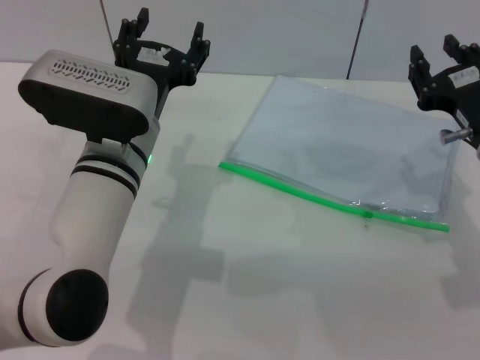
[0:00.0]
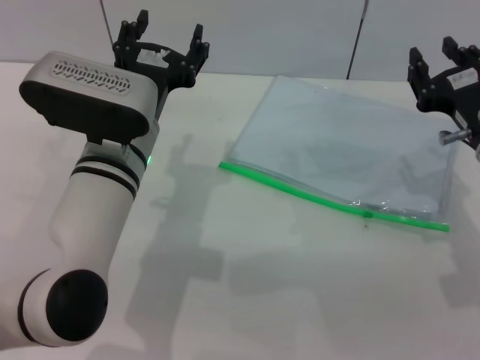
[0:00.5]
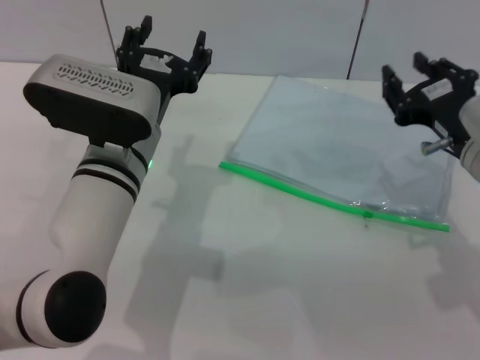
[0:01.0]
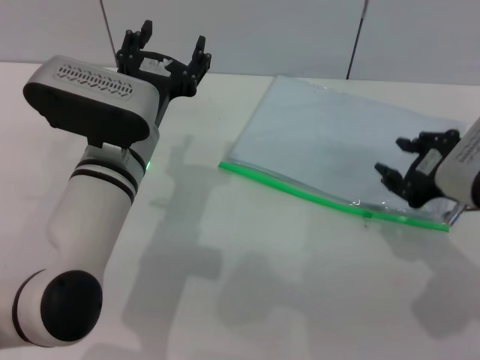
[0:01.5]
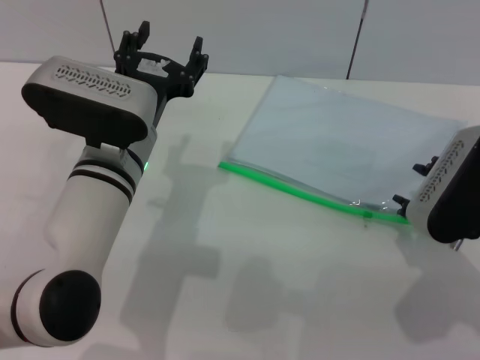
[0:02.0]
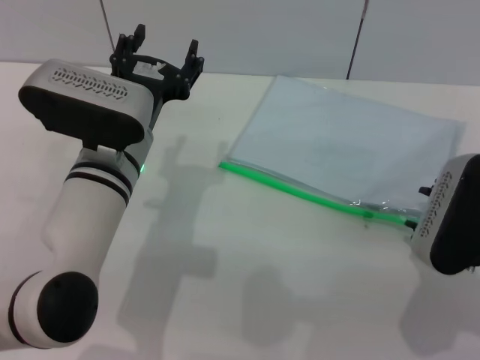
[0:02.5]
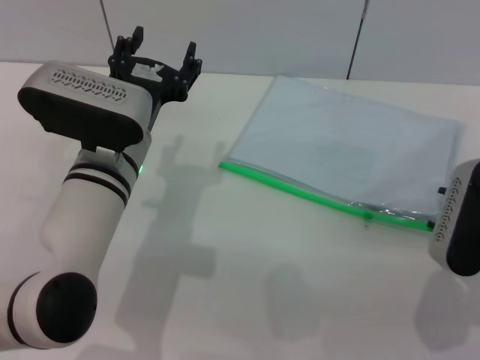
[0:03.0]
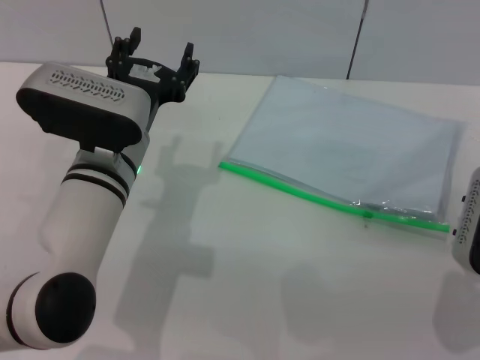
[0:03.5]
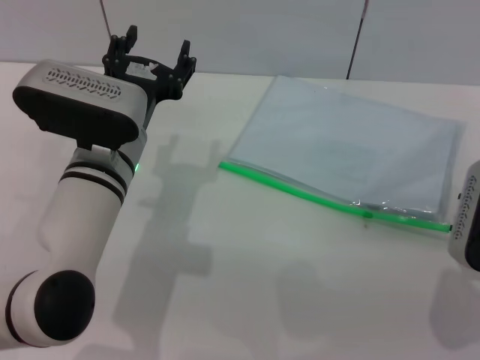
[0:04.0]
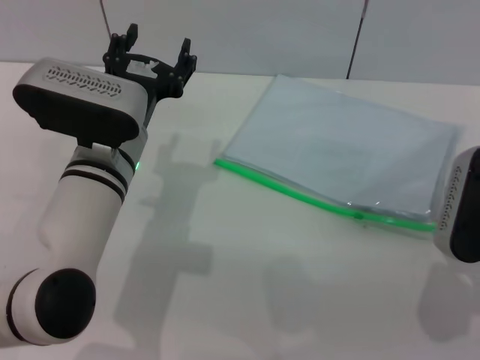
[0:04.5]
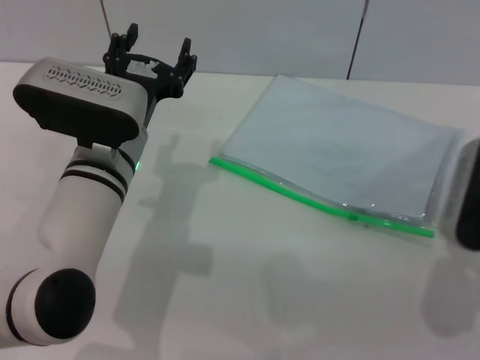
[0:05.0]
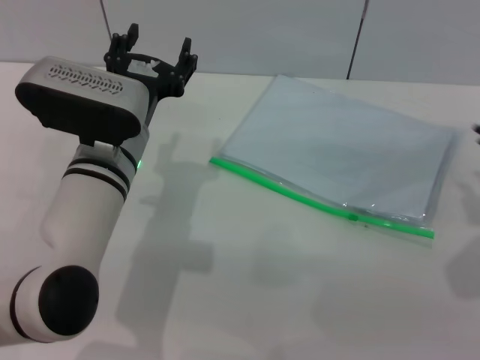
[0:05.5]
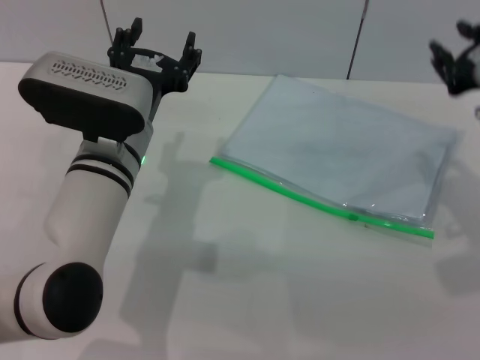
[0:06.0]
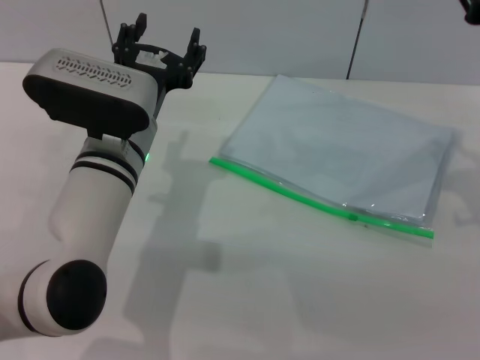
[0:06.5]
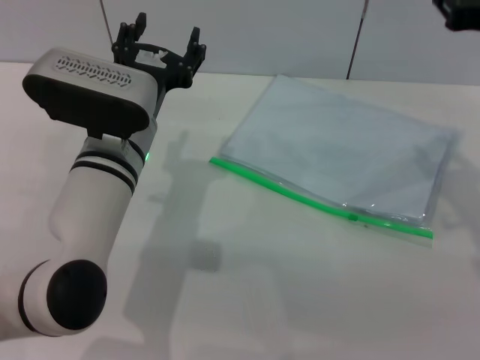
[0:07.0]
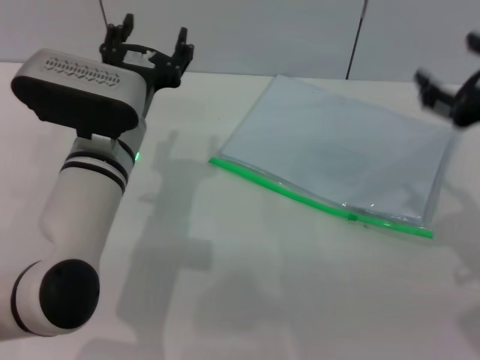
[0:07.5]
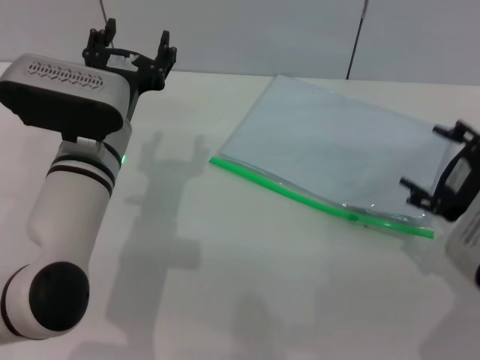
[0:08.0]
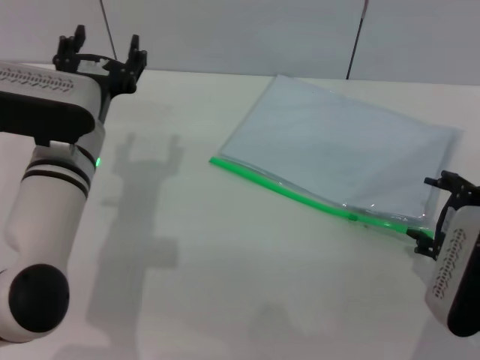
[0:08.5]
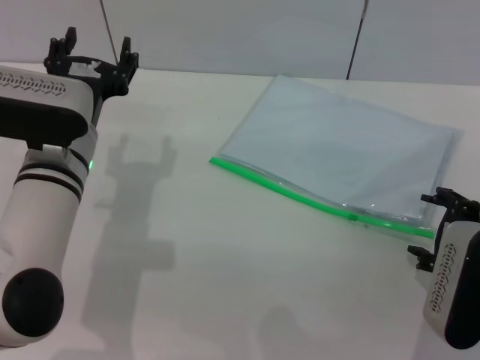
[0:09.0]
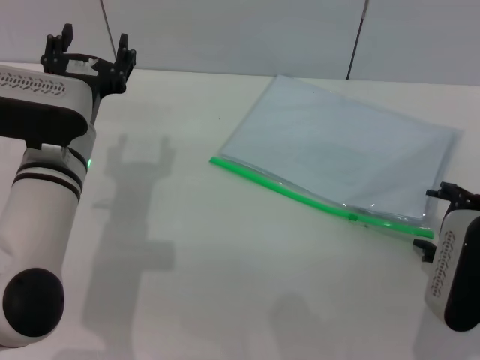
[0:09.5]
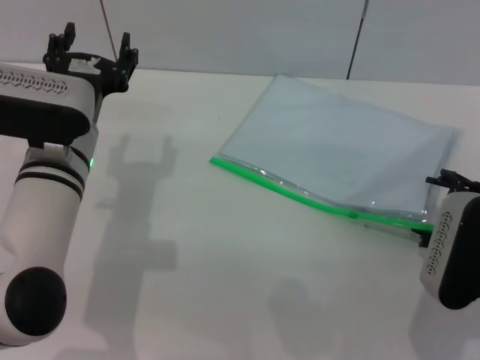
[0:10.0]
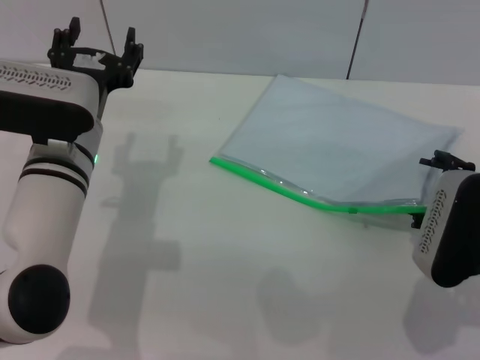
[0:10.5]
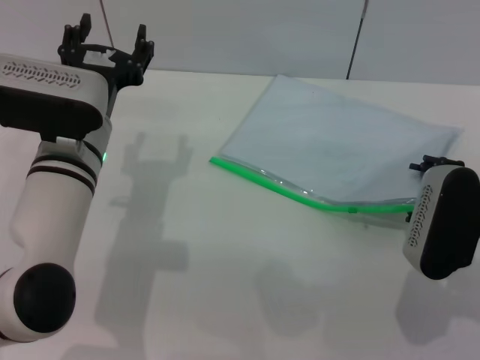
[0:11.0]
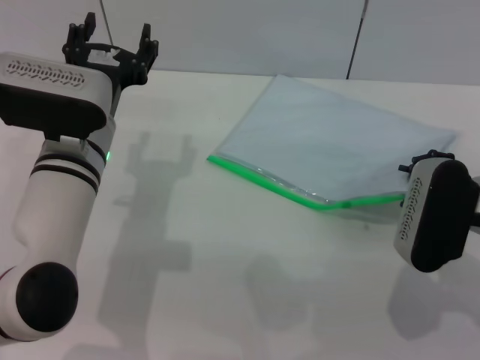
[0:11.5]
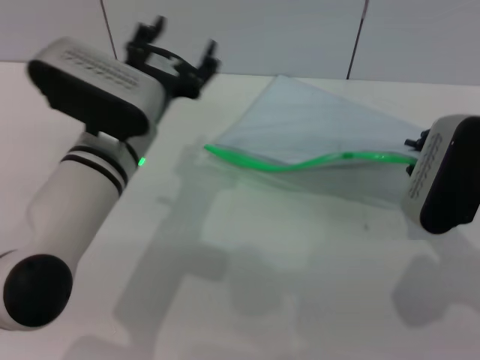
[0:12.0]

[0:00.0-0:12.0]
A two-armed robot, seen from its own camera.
0:04.0 to 0:06.0: The right gripper goes approximately 5 cm upward.
0:06.0 to 0:08.0: The right gripper is displaced backward by about 5 cm, and opens its fingers.
0:08.0 to 0:10.0: The right gripper heads downward, covering some 5 cm.
0:10.0 to 0:12.0: The right gripper moves some 5 cm, and closes.

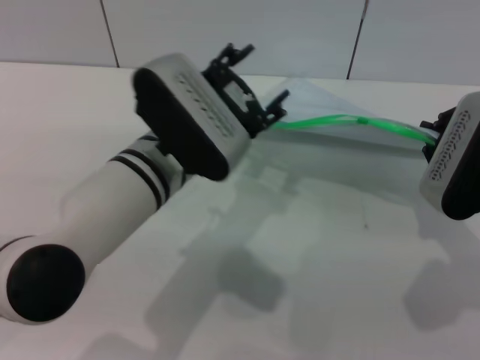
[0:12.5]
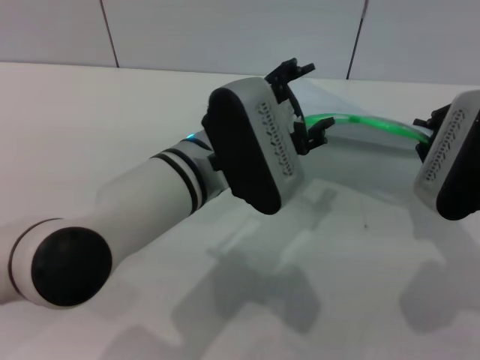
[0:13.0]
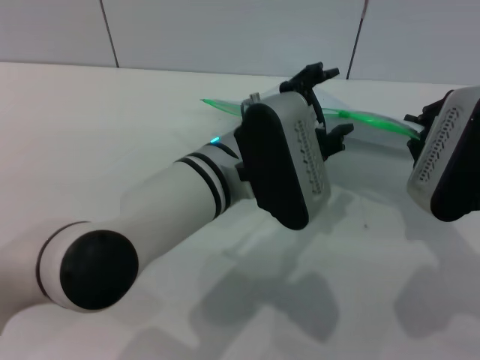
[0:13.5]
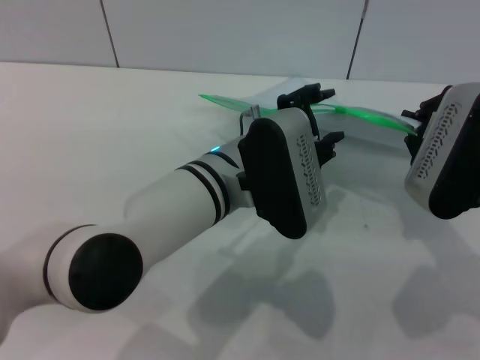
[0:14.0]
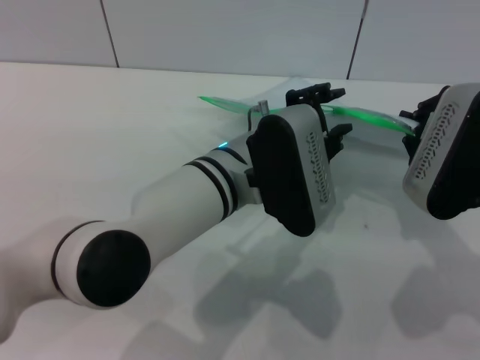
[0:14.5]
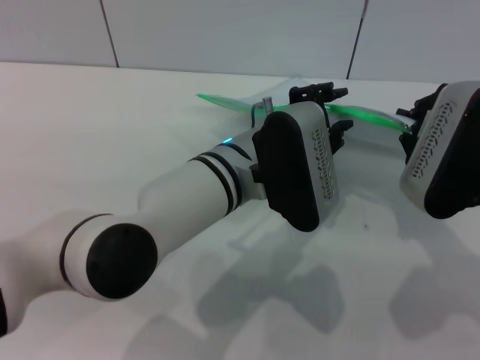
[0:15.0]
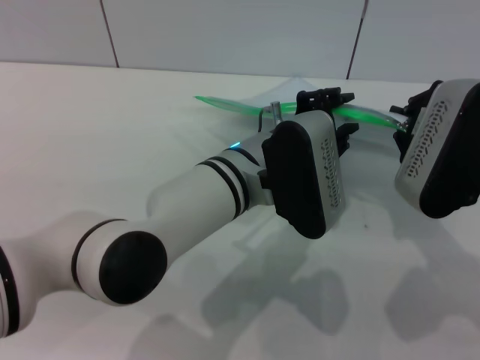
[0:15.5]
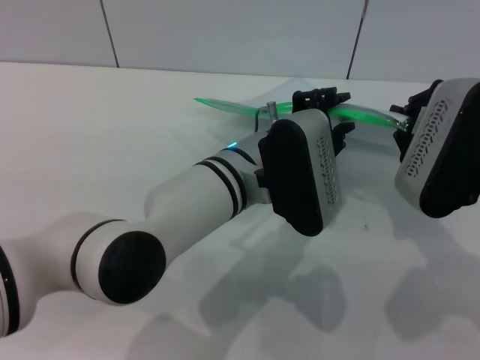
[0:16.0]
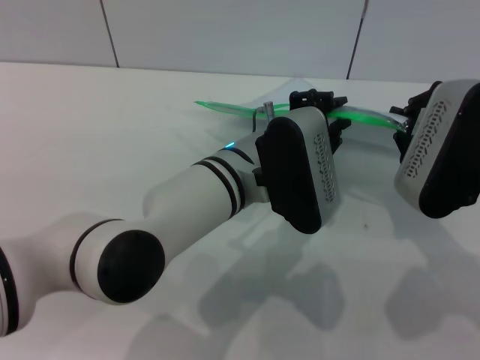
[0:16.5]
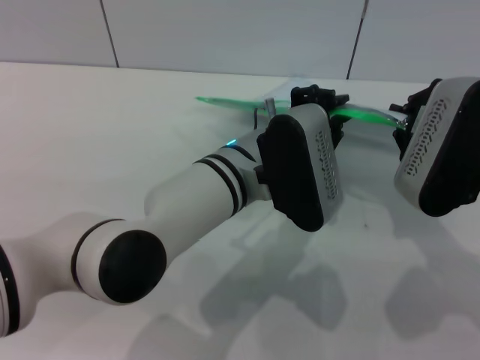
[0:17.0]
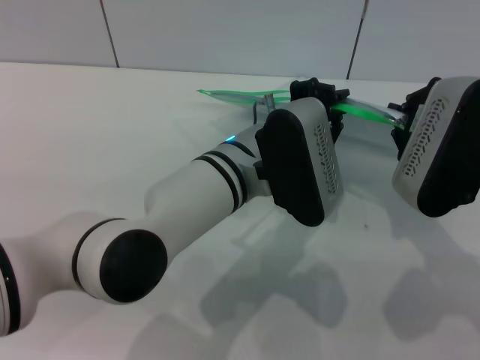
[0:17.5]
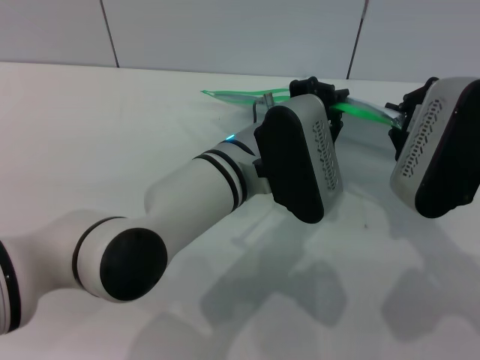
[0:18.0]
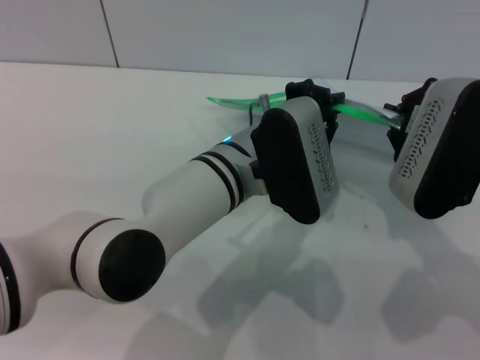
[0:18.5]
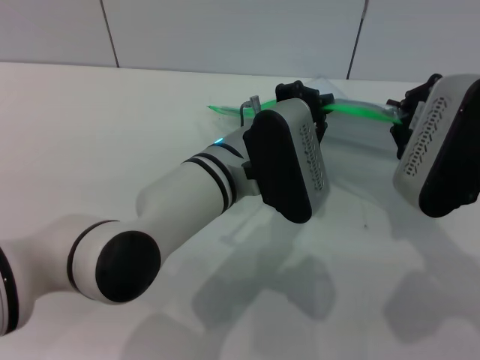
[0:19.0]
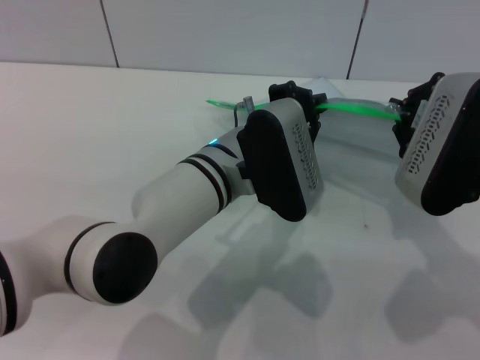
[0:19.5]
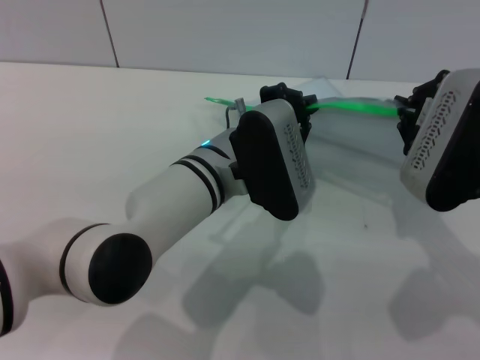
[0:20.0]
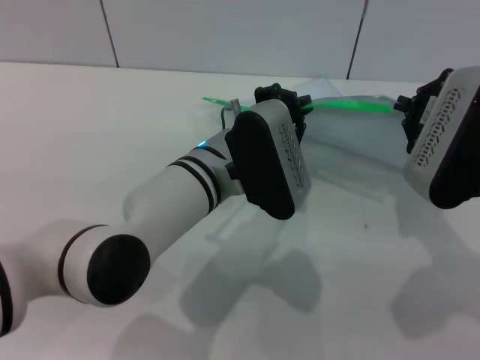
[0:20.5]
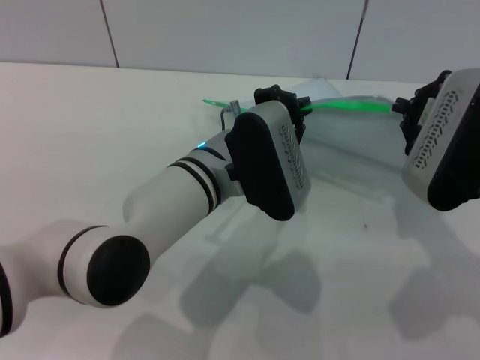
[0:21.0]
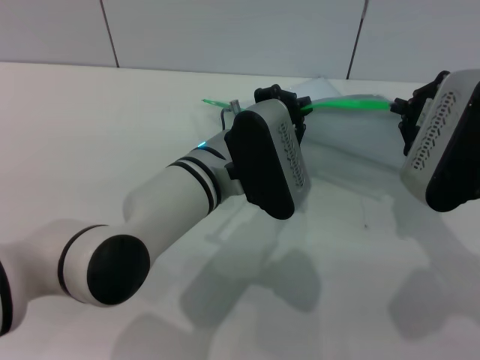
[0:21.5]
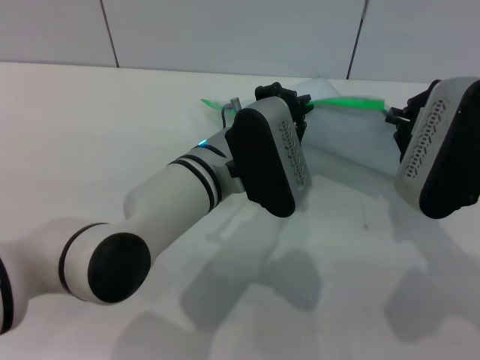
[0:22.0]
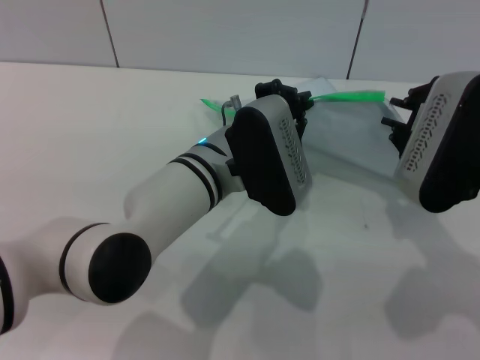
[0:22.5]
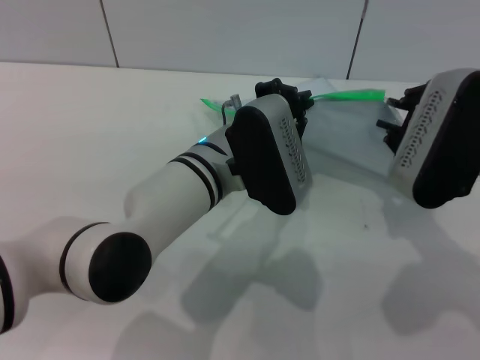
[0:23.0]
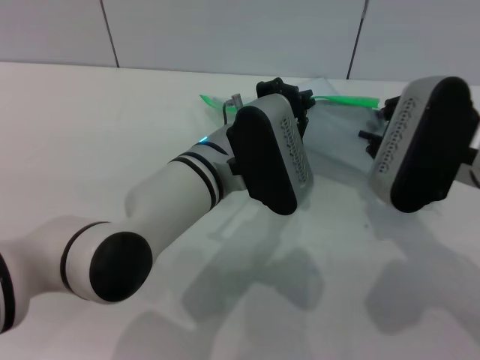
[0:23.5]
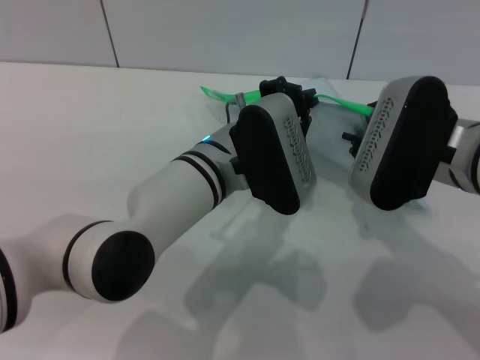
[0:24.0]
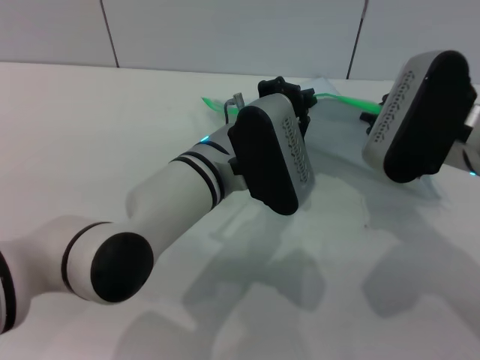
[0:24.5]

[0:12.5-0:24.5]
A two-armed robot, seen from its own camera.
0:12.5 to 0:14.5: The left gripper heads to the right, covering approximately 5 cm.
0:14.5 to 0:18.5: Both grippers stay put.
0:18.5 to 0:20.5: There are only small adjustments of the grippers.
0:20.5 to 0:22.5: Both grippers stay about where they are.
0:22.5 to 0:24.5: The grippers move only a little.

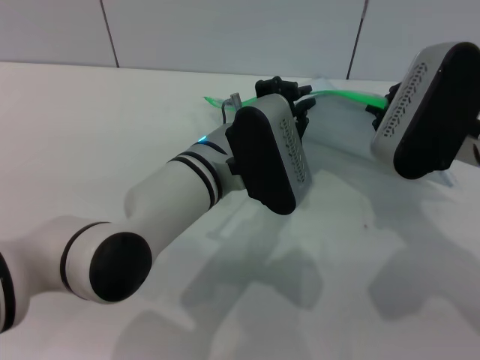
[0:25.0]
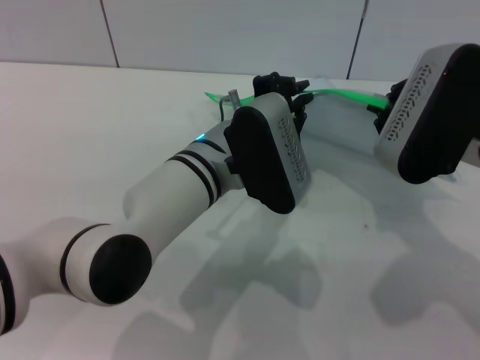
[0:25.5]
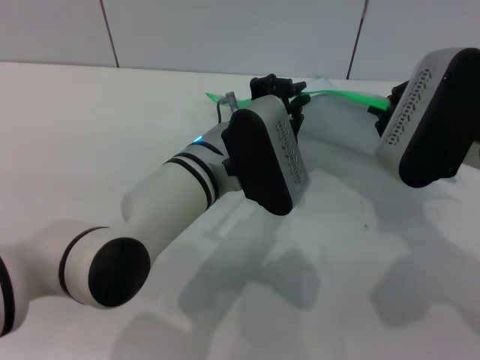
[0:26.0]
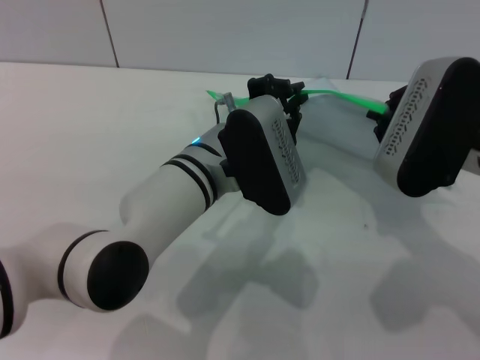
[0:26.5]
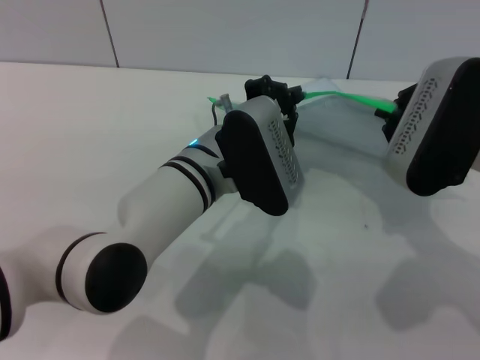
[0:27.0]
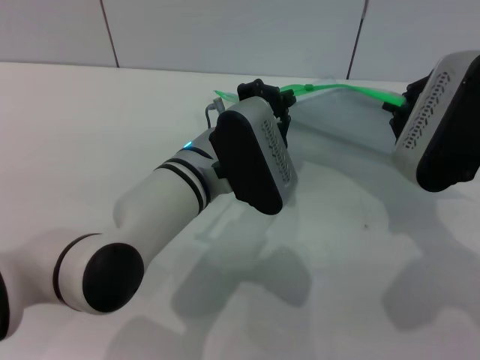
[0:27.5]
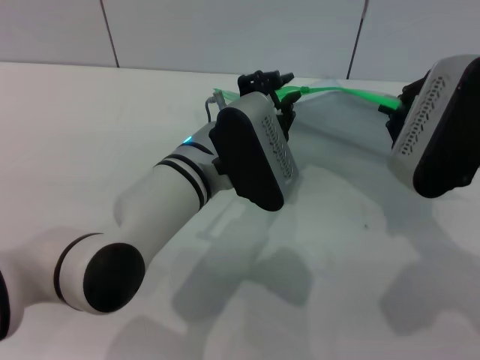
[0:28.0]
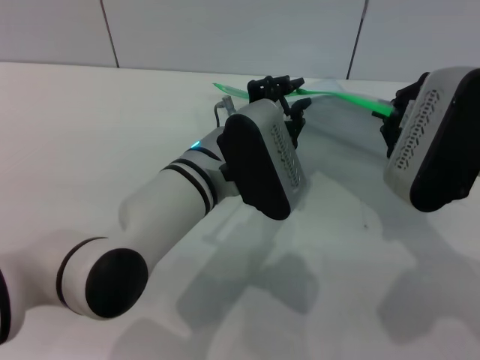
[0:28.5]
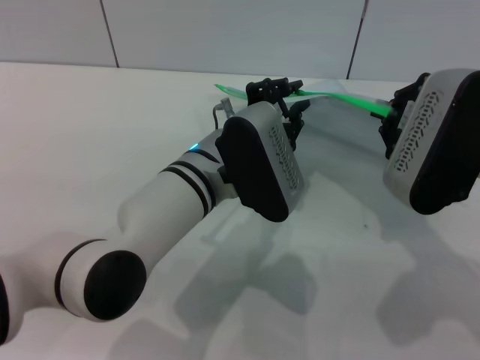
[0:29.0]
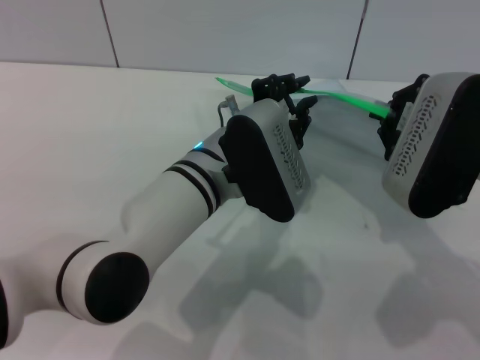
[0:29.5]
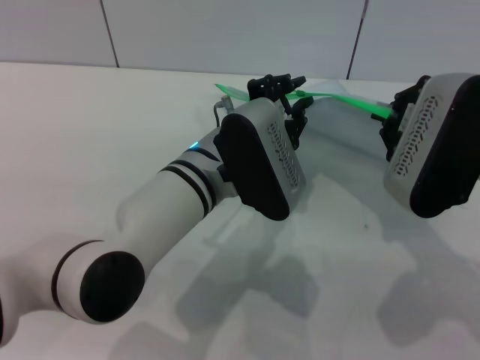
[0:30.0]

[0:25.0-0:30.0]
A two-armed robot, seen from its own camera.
0:25.0 to 0:30.0: The grippers stay close to where they were, moving slightly.
